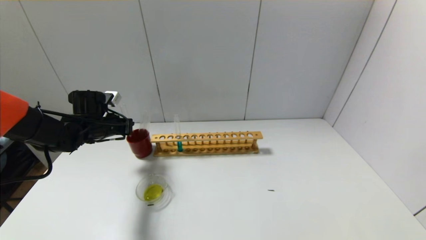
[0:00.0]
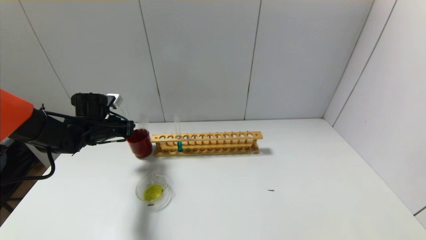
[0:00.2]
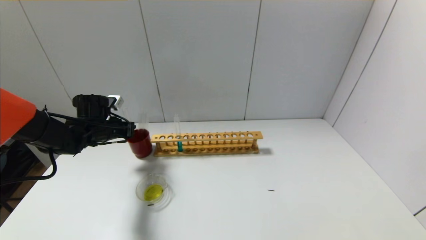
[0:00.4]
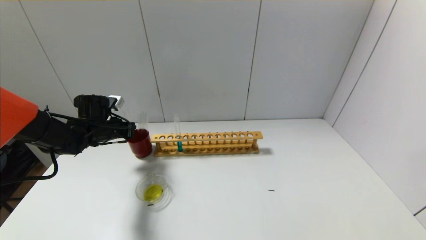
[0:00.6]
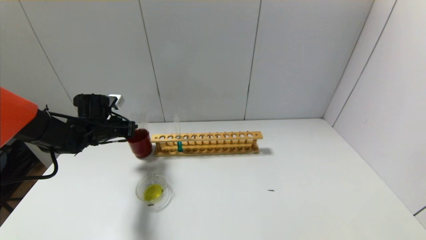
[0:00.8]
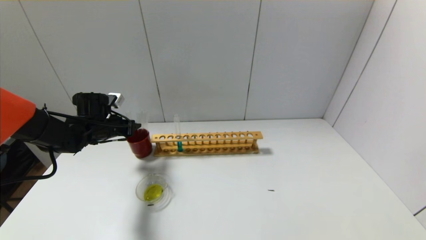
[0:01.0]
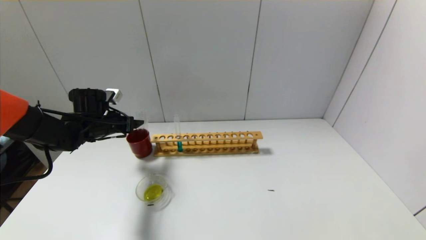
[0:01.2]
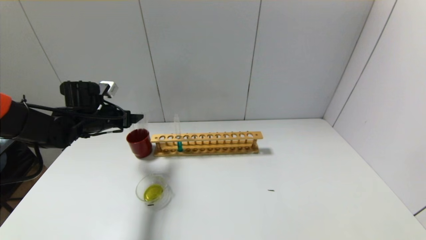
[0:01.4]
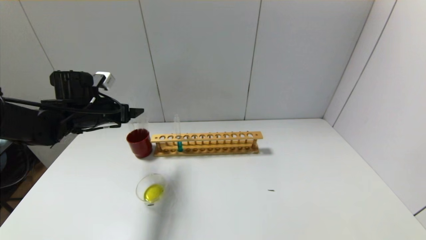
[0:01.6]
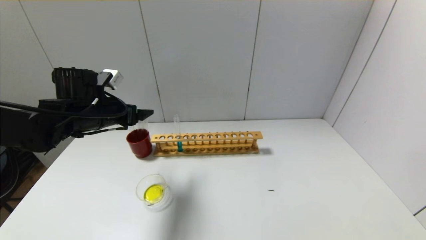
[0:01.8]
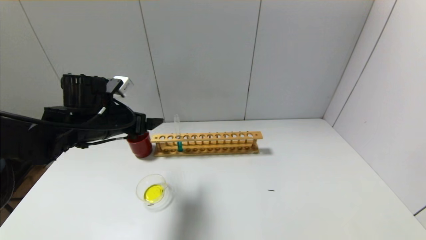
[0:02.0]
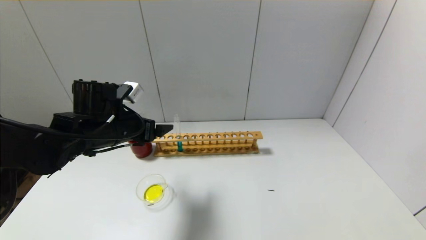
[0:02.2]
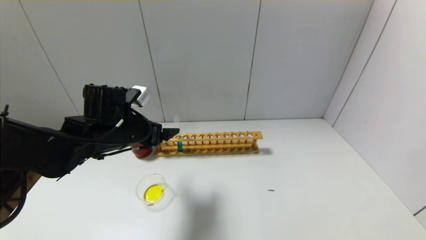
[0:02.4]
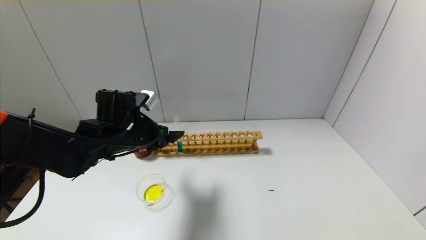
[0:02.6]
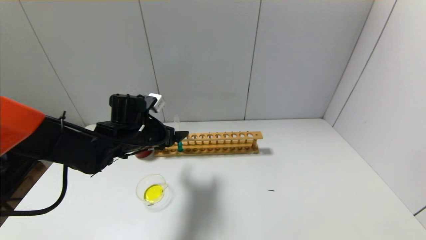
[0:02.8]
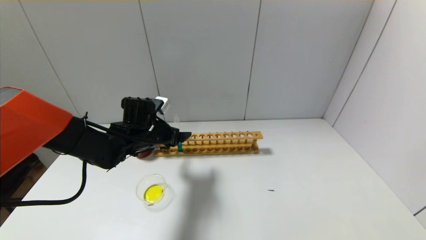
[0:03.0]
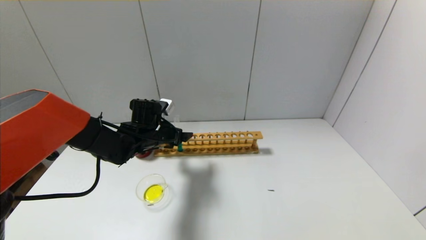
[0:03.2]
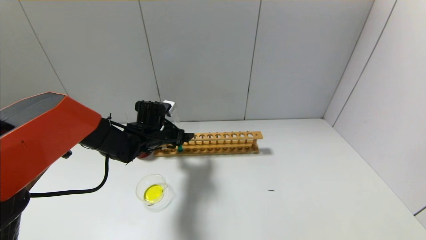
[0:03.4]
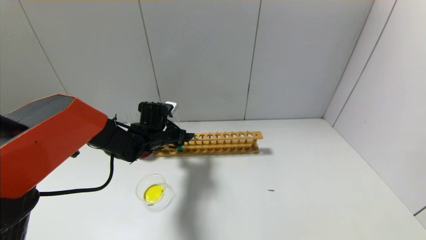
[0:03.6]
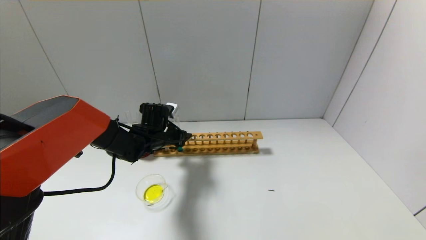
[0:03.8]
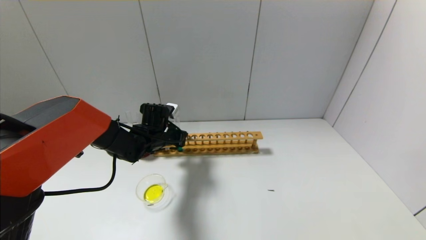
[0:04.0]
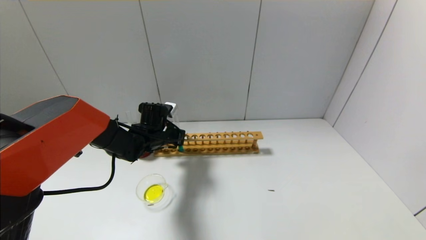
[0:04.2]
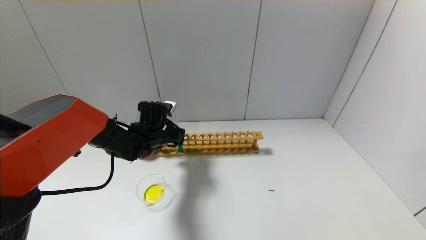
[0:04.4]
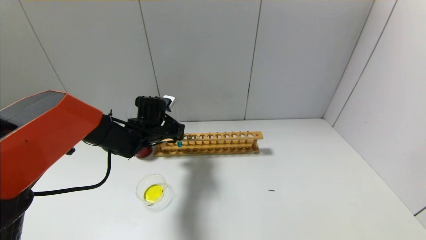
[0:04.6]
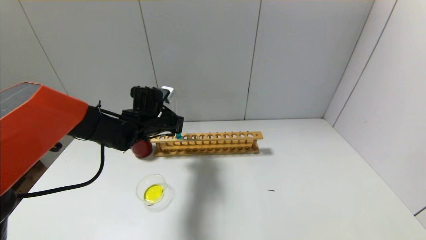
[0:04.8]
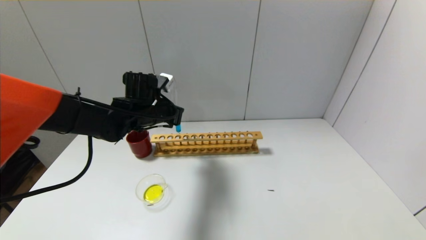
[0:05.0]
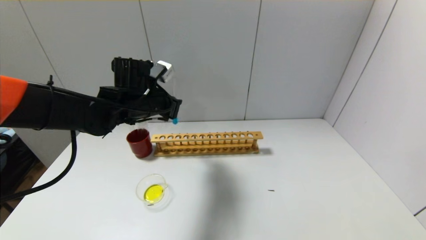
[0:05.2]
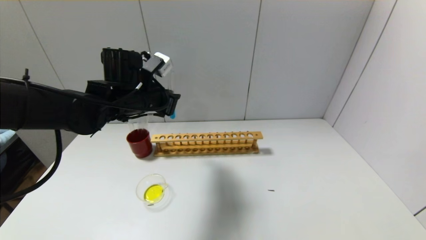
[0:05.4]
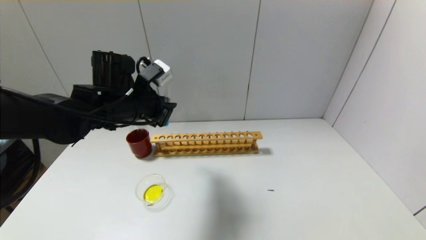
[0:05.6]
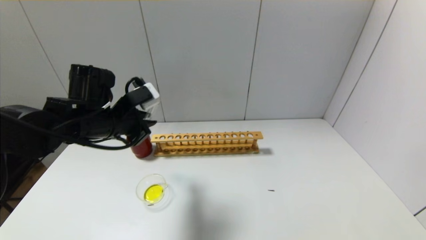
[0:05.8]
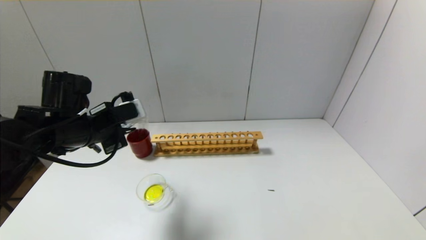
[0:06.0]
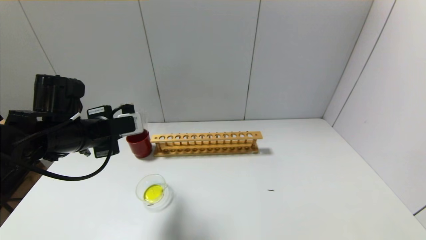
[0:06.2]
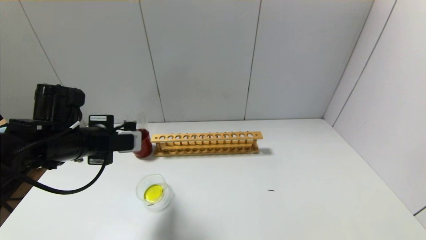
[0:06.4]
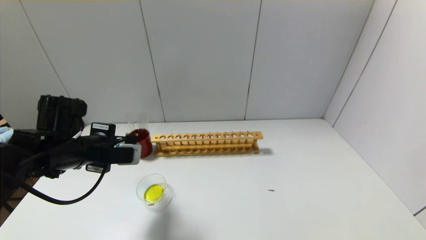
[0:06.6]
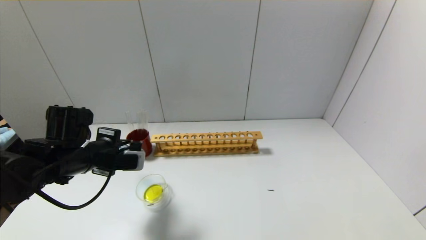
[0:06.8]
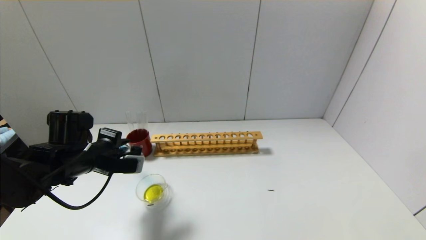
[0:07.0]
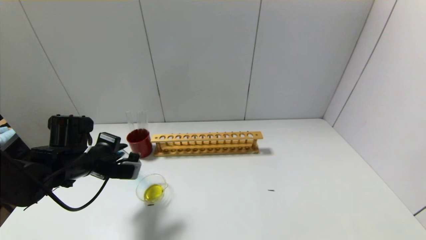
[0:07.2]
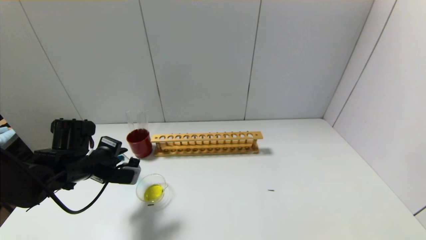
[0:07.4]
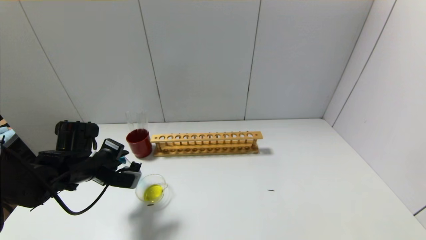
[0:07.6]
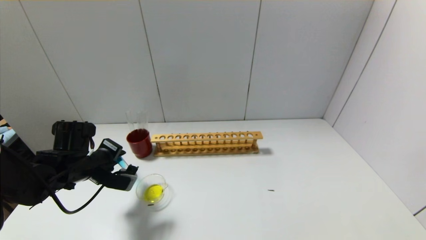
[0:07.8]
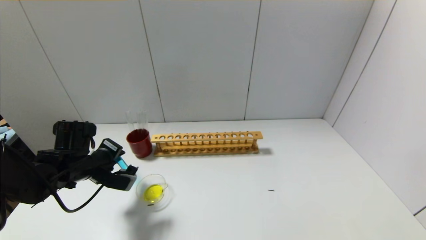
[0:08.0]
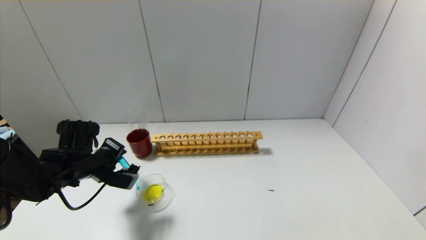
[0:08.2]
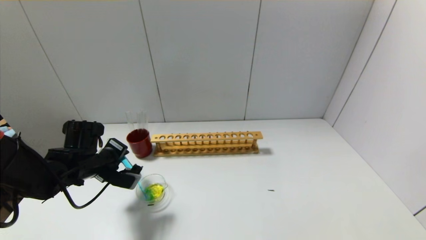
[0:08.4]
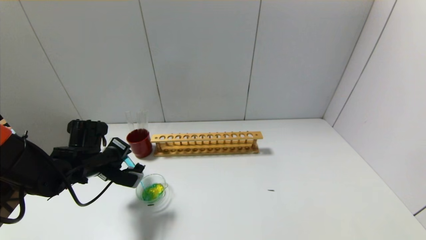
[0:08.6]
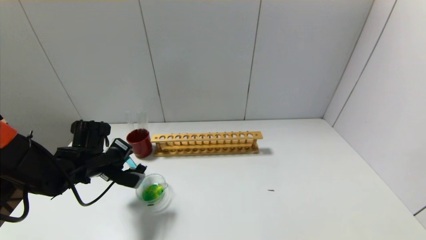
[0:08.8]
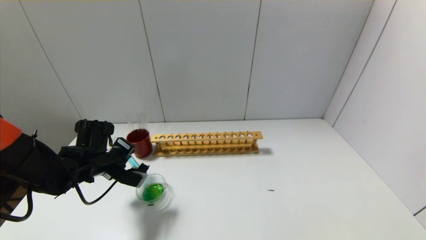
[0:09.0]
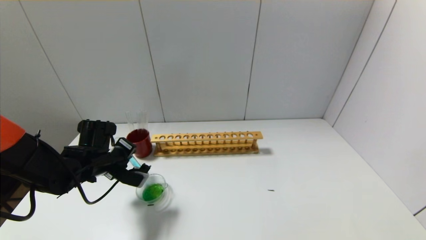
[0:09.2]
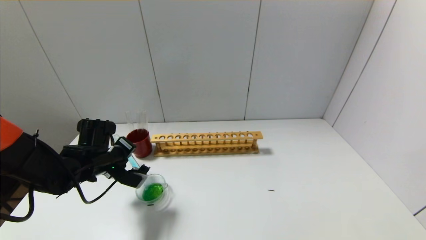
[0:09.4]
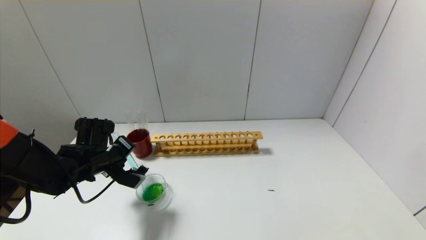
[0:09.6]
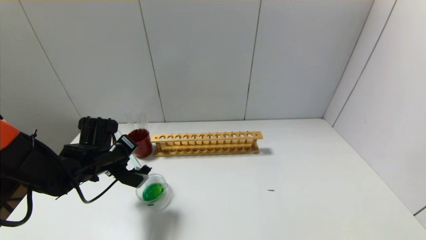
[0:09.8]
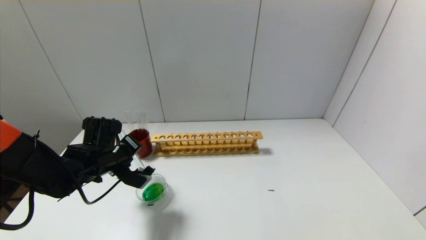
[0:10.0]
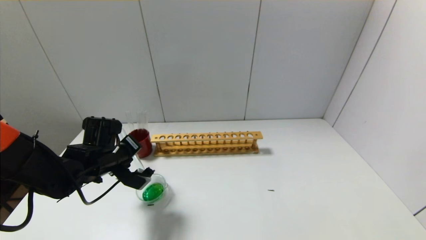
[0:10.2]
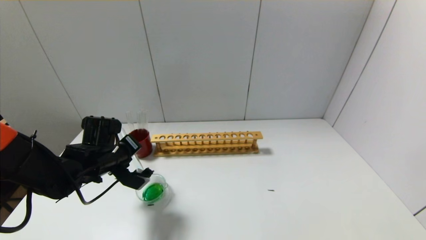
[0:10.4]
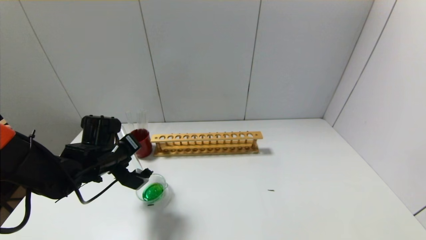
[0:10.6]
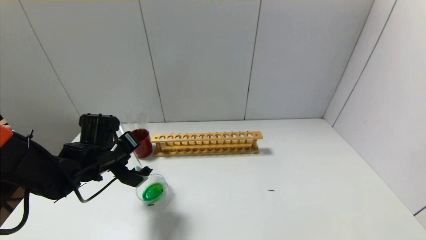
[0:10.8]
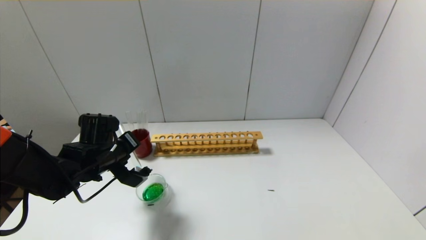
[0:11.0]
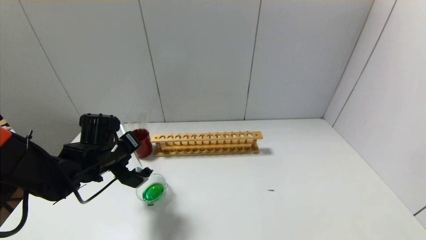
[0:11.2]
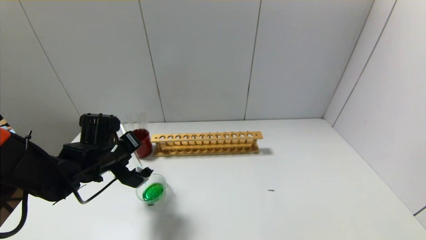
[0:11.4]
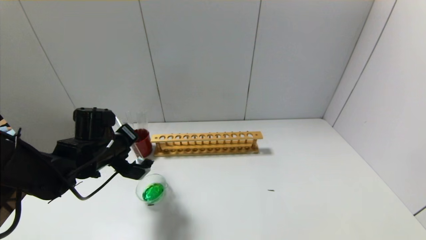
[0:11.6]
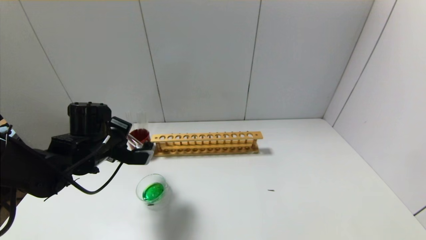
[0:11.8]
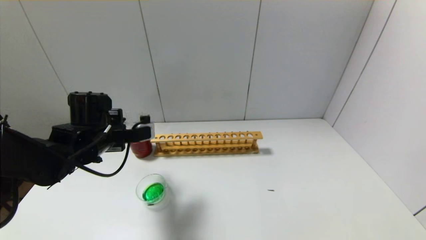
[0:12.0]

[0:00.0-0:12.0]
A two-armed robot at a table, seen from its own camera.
Step, 0:01.0 to 0:04.2: Grasp the blue reagent with the left gripper.
Step, 0:04.4 to 0:11.8: Pour the blue reagent into the graduated cylinder with the left gripper.
0:00.0 to 0:01.6: The left gripper is displaced upward by roughly 5 cm, and opens its fingers.
0:01.6 to 0:03.0: The left gripper travels to the right and downward by about 15 cm.
0:03.0 to 0:04.4: The left gripper changes place by some 5 cm, and closes its fingers.
0:04.4 to 0:06.0: The left gripper goes roughly 20 cm backward, upward and to the left.
0:06.0 to 0:07.6: The left gripper shifts approximately 10 cm downward.
0:07.6 to 0:09.0: The grippers stay close to where they were, moving slightly.
0:09.0 to 0:10.4: The grippers move only a little.
0:10.4 to 0:12.0: The left gripper is displaced upward by about 5 cm.

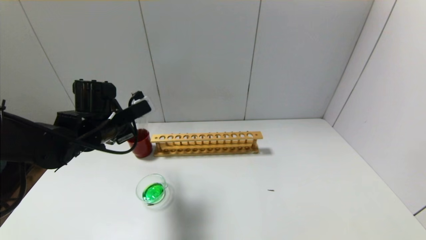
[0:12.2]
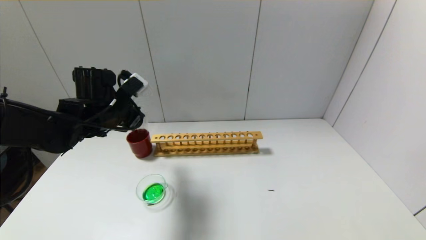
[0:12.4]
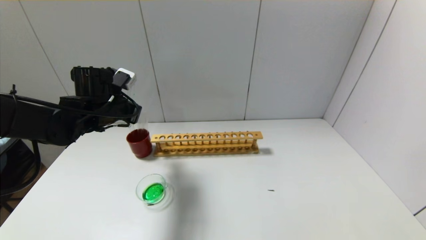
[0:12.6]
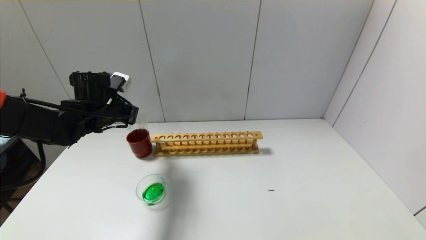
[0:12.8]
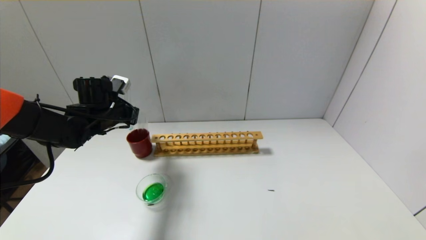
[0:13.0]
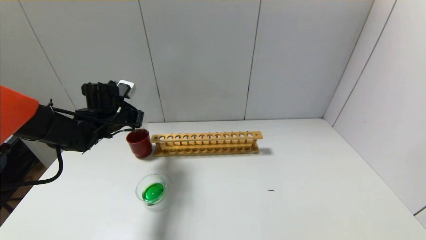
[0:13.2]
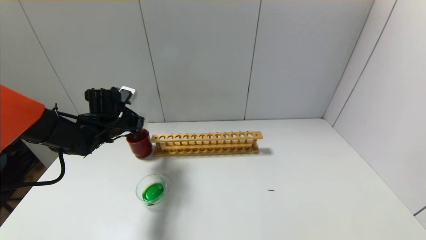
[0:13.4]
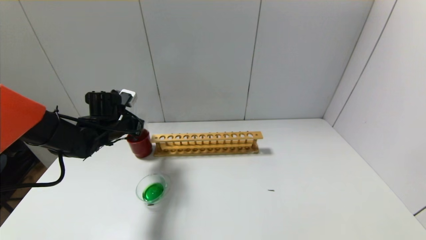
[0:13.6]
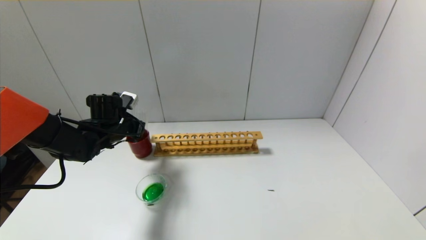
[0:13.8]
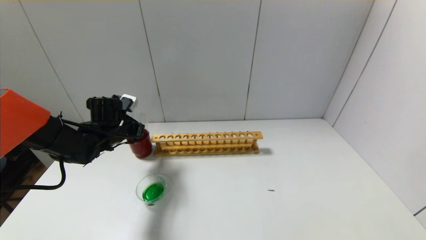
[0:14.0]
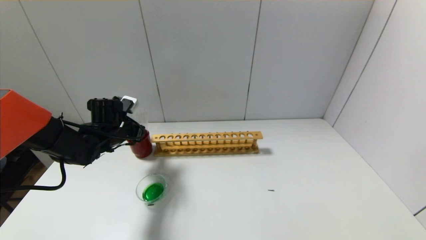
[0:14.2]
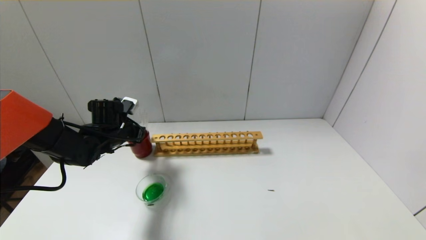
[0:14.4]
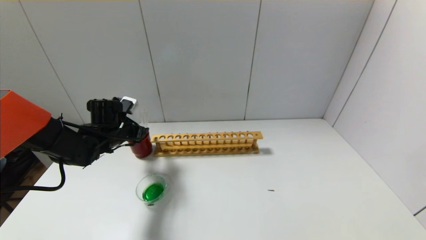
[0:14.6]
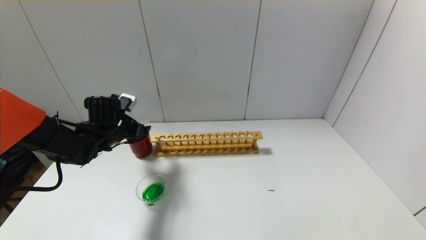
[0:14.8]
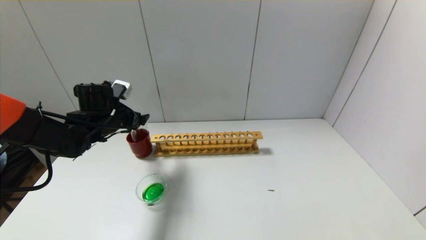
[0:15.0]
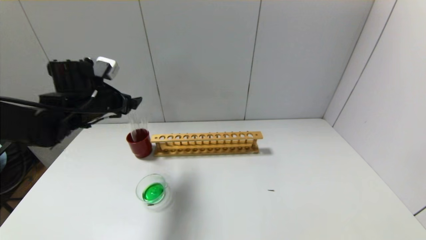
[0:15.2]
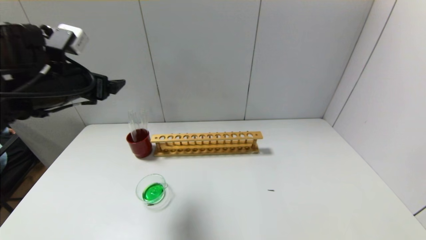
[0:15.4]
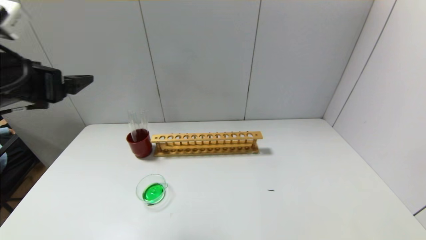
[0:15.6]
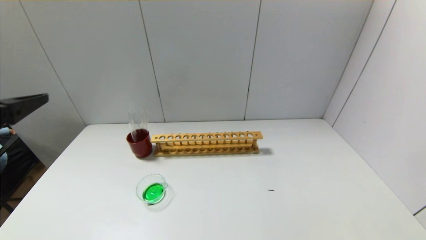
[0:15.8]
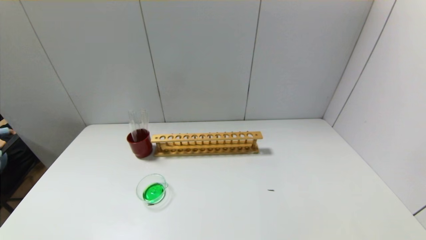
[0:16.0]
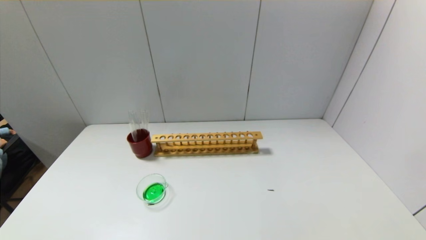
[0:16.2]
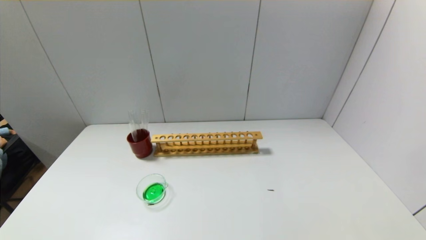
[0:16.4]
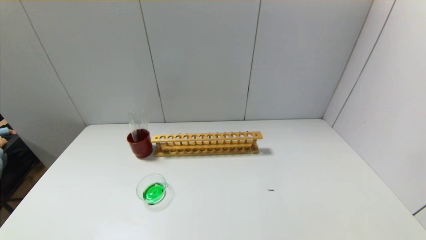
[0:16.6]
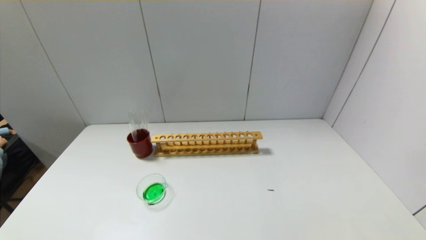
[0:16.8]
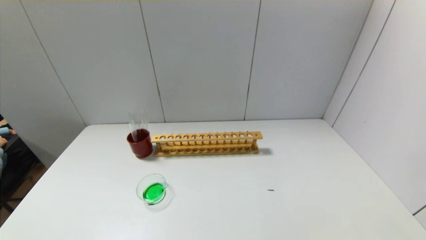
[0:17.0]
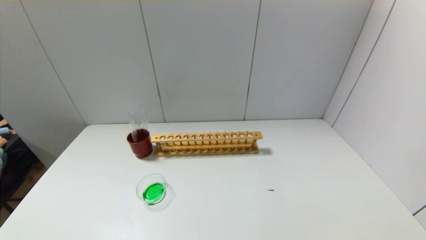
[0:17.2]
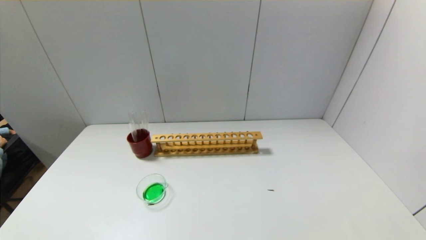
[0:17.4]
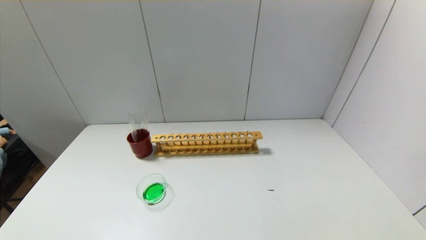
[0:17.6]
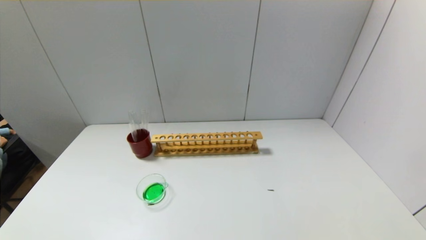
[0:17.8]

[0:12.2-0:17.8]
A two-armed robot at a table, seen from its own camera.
Step, 0:12.2 to 0:14.4: Place the test tube into the brown cup with the left gripper.
0:12.2 to 0:13.6: The left gripper heads forward and downward, covering about 10 cm.
0:13.6 to 0:15.0: The left gripper opens its fingers.
0:15.0 to 0:16.4: The left gripper shifts about 40 cm backward.
